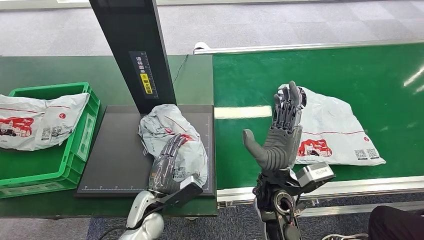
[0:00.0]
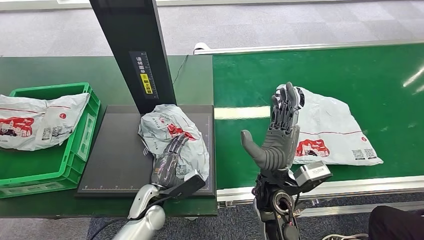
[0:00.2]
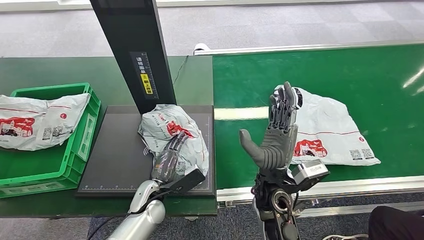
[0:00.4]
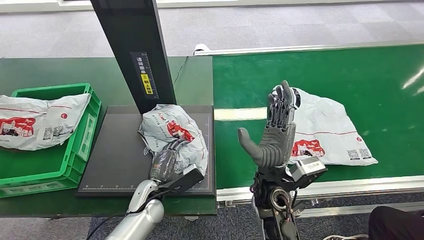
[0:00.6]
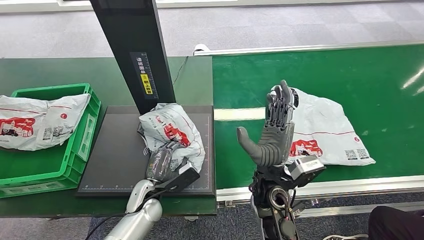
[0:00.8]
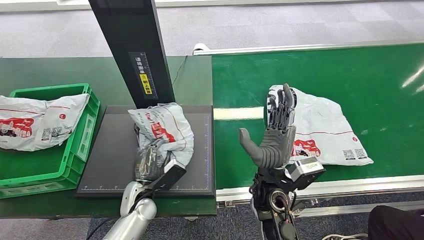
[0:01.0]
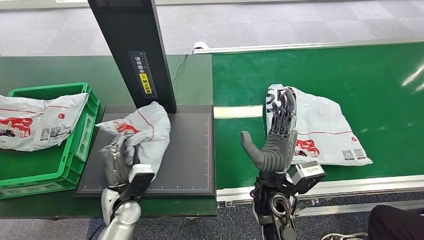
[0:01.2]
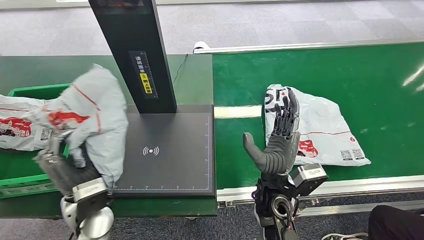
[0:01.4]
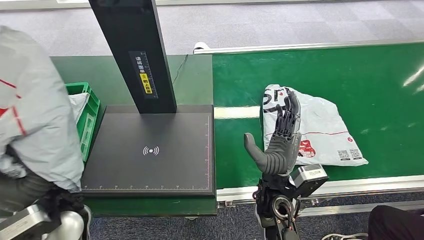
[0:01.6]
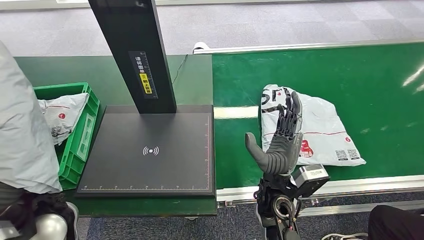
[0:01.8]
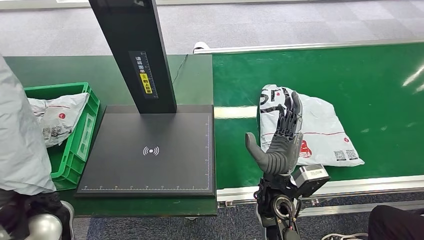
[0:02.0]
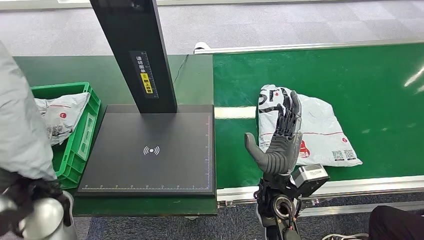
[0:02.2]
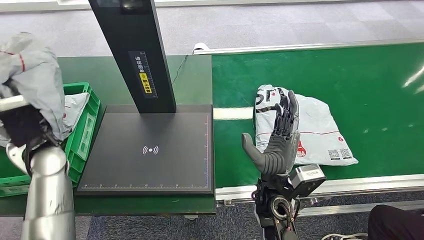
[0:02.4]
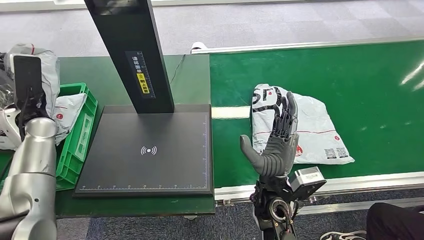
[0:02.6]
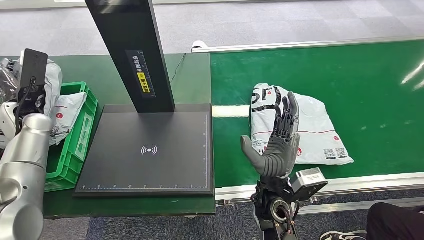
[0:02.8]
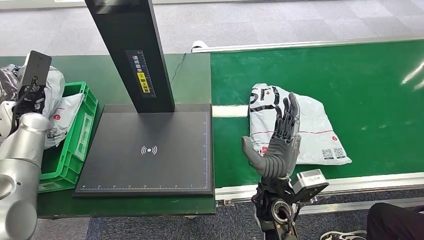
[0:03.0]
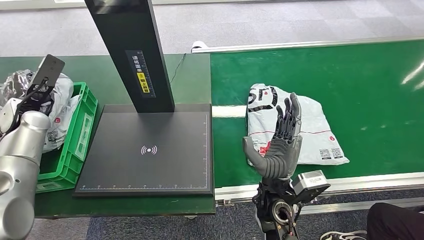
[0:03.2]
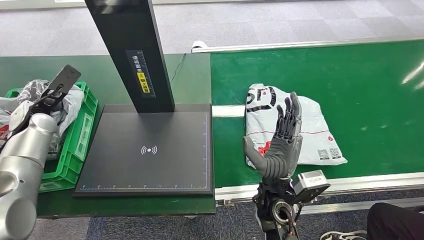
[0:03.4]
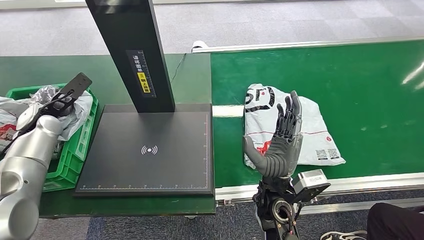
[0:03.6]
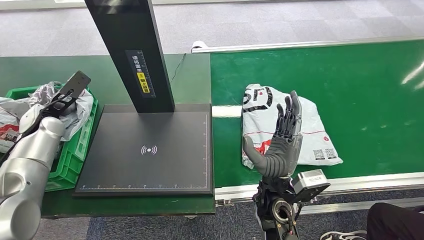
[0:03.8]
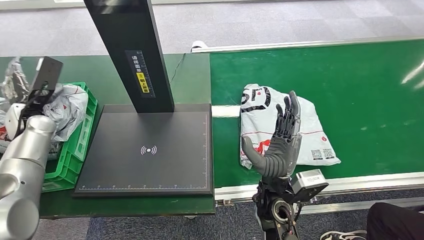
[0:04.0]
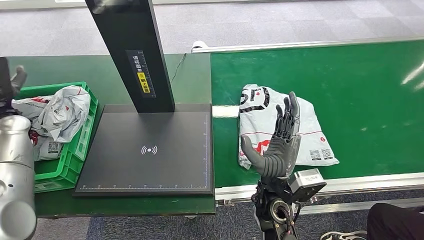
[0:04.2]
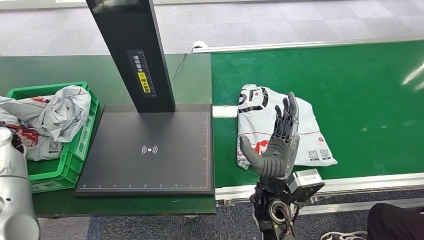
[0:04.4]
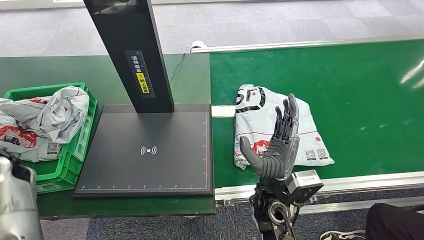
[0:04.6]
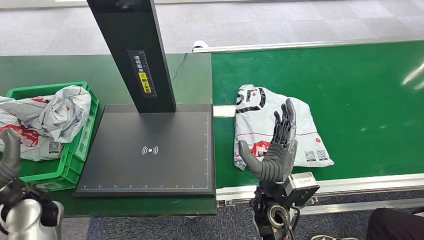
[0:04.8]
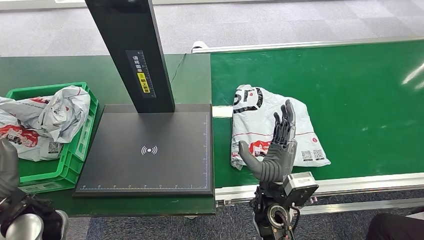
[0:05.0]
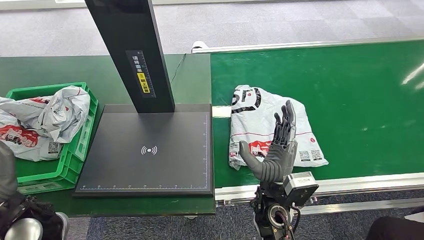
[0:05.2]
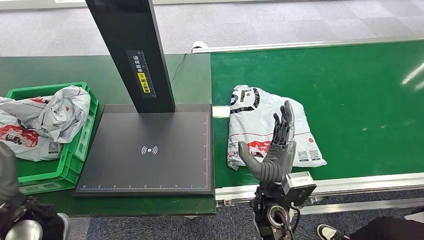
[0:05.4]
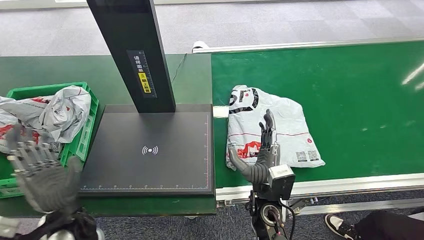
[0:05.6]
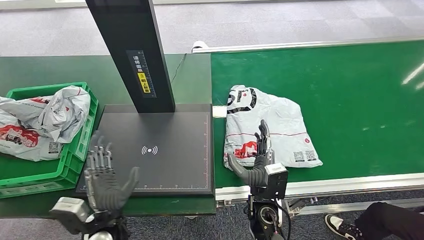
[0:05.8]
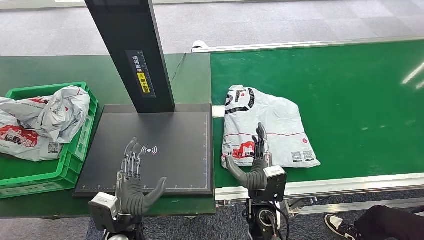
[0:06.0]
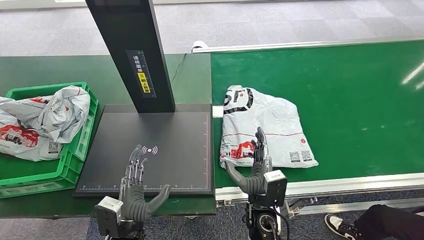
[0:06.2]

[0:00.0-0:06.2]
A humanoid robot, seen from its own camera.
Step, 0:01.8 to 0:06.2: Place the package into the parcel locker.
0:03.2 to 0:04.6: The left hand heads backward and downward, covering about 10 cm.
0:04.6 to 0:06.2: The right hand shifts about 10 cm downward, while the left hand moves to the right, backward and downward, approximately 35 cm.

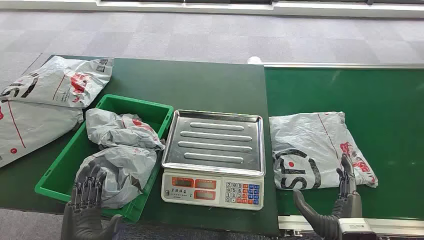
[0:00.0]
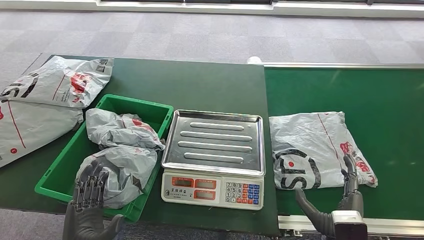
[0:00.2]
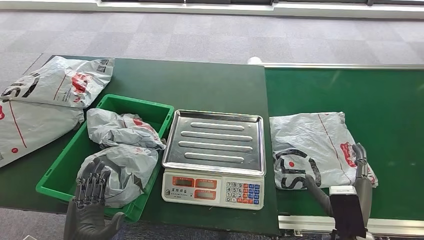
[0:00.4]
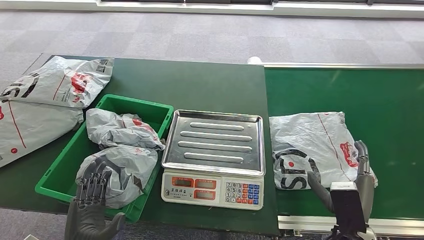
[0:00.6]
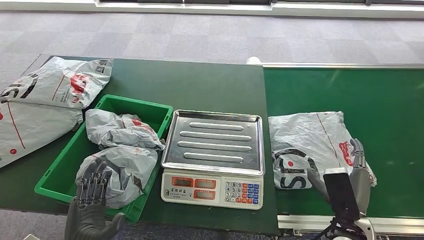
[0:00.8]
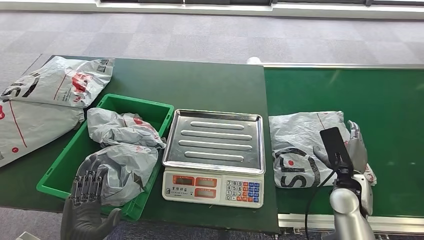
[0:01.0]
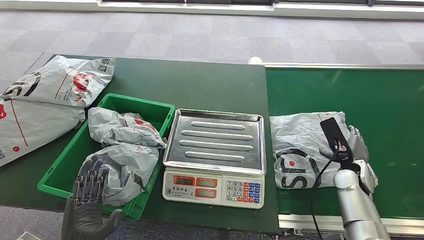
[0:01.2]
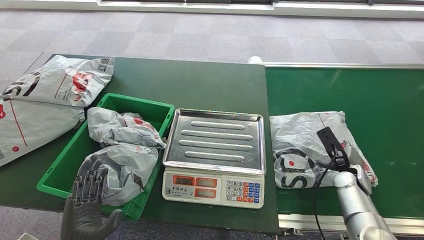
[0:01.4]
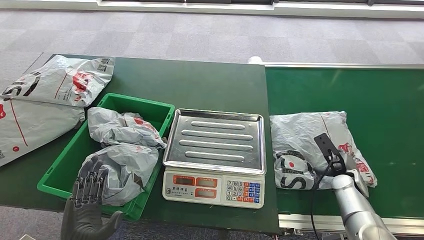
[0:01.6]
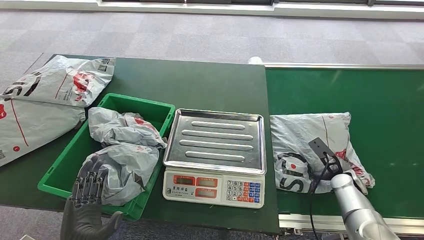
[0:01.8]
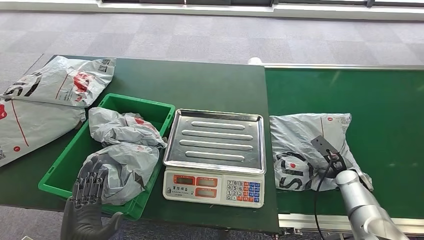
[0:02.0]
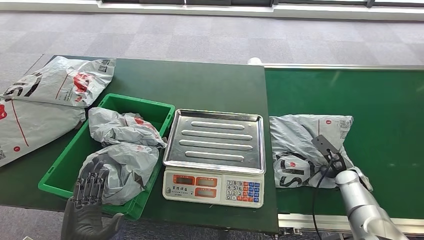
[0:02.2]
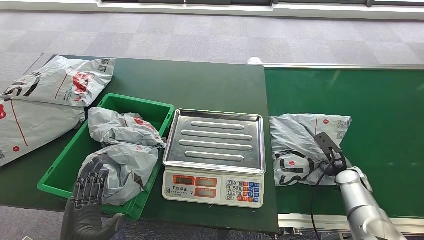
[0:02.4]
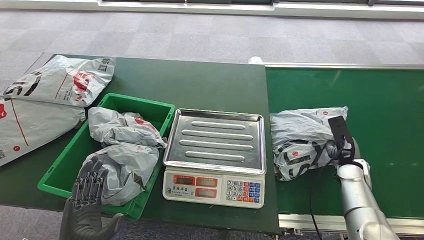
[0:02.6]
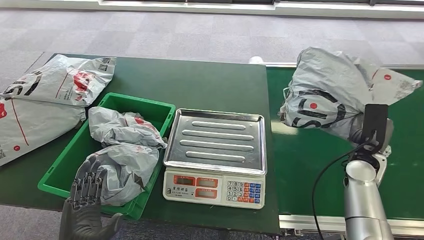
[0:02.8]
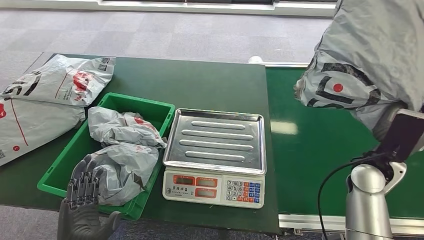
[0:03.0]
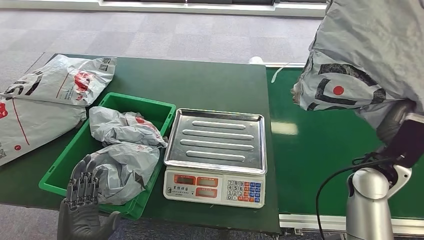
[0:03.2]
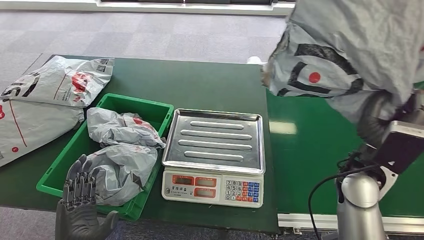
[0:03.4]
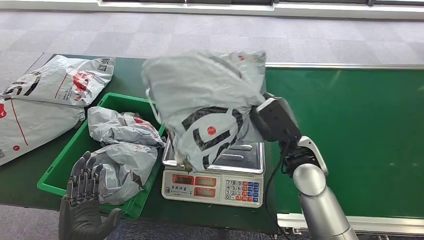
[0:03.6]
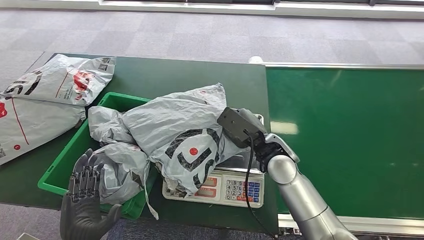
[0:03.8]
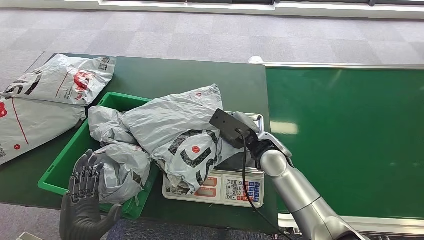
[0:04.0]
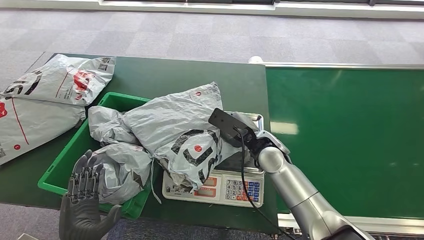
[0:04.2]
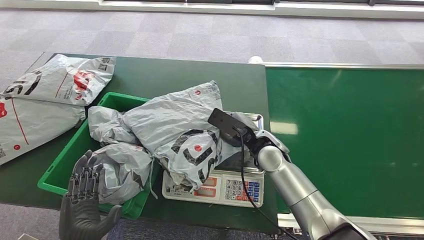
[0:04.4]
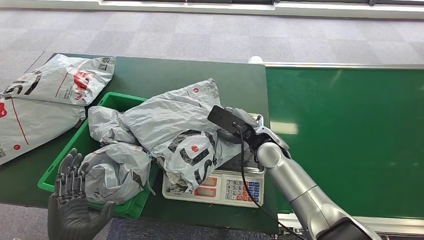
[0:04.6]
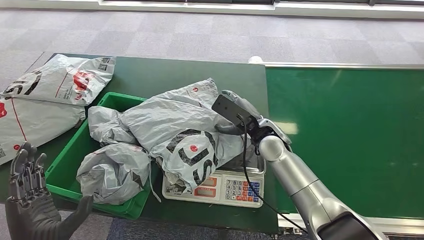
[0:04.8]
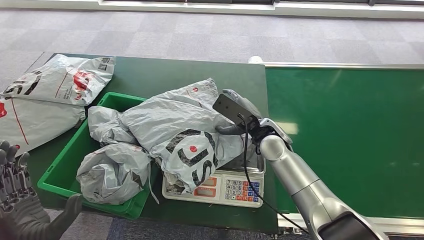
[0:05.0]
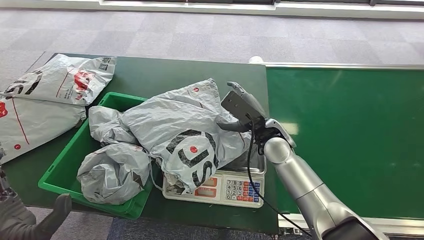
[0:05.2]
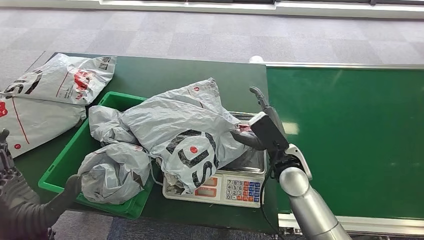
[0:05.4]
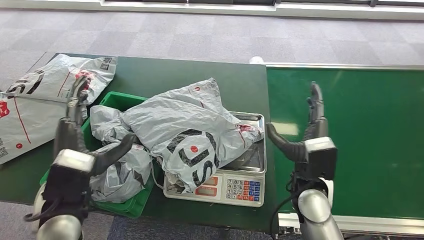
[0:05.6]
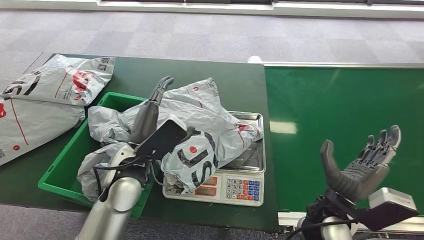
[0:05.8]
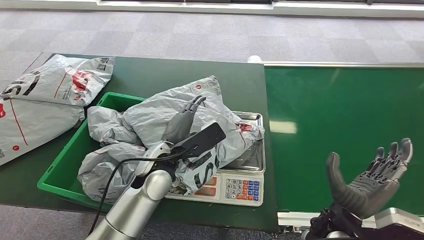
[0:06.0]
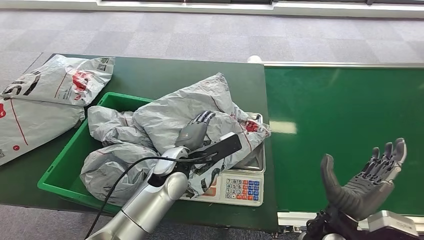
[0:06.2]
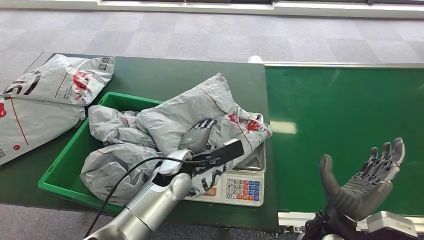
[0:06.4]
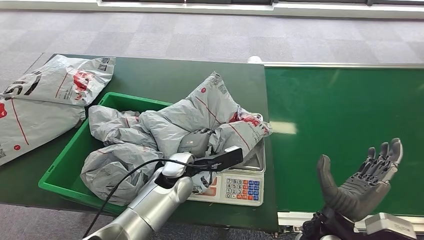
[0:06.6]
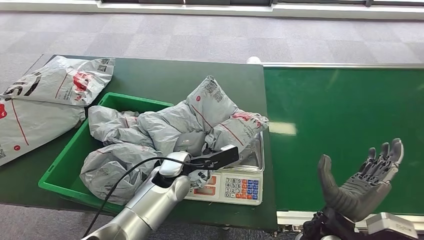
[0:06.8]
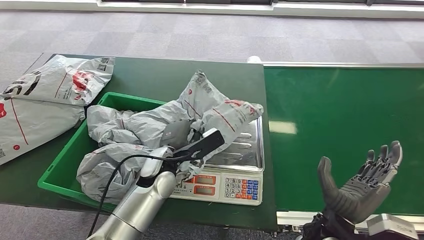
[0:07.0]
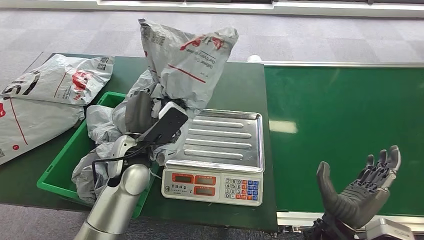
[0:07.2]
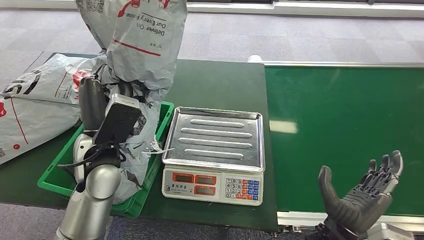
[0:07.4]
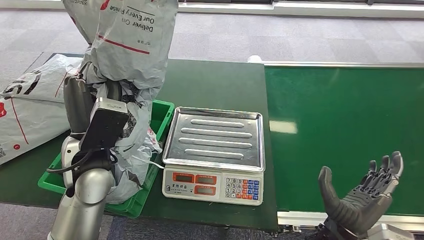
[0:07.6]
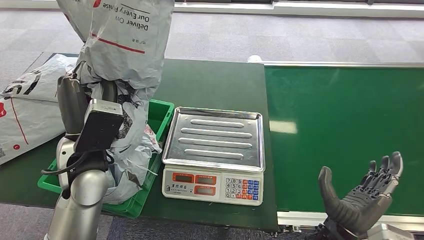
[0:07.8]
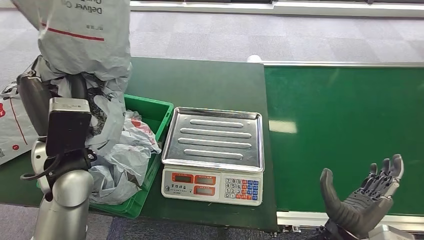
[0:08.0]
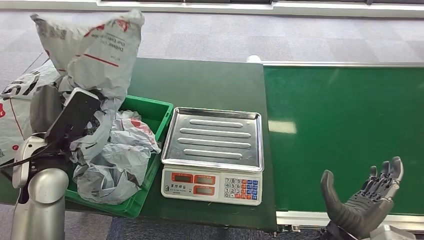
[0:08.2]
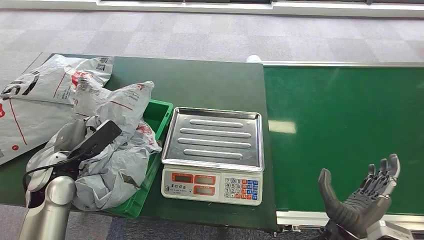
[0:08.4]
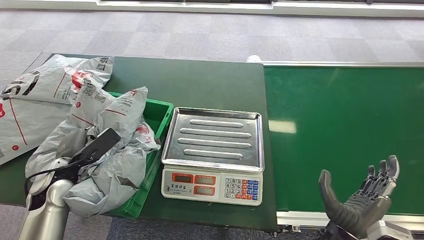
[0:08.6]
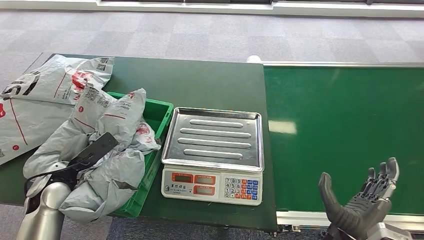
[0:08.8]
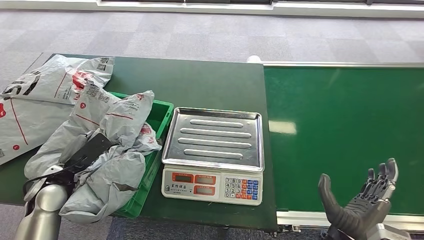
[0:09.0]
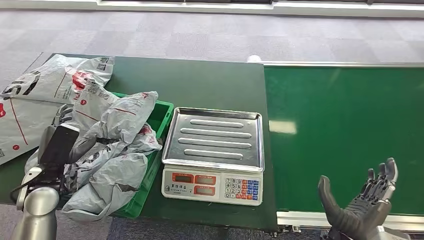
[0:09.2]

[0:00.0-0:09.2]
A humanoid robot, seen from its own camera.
Step, 0:00.0 to 0:03.4: Pick up the package from the conveyor belt.
Step, 0:03.6 to 0:05.8: Place the package onto the inbound machine.
Step, 0:06.0 to 0:07.8: Pick up the package from the inbound machine.
Step, 0:08.0 to 0:09.0: Place the package into the parcel locker.
